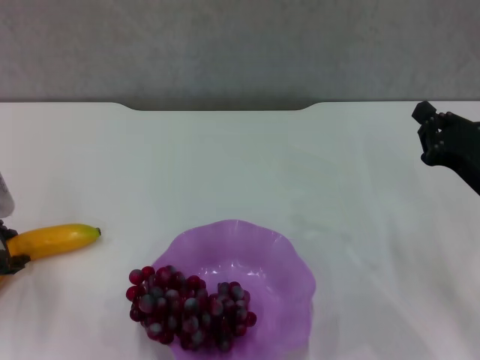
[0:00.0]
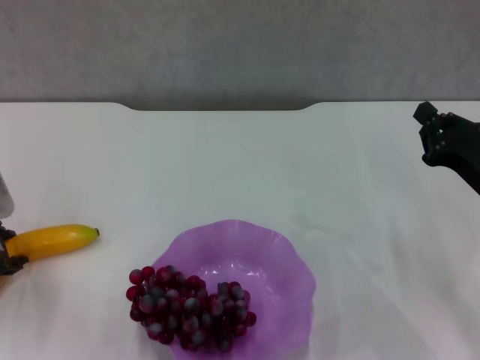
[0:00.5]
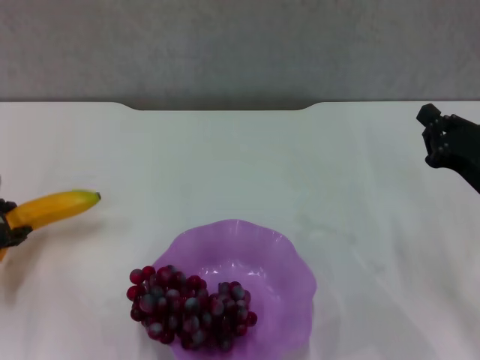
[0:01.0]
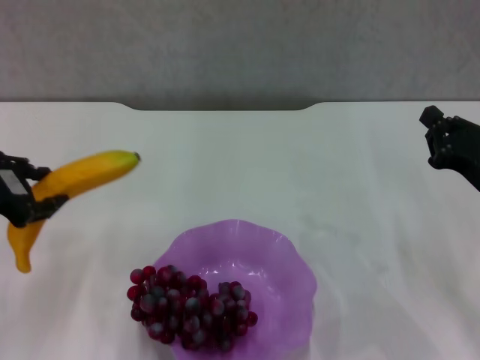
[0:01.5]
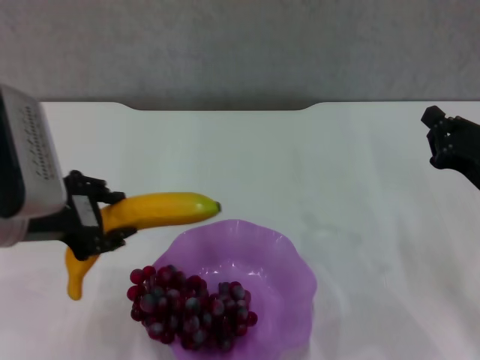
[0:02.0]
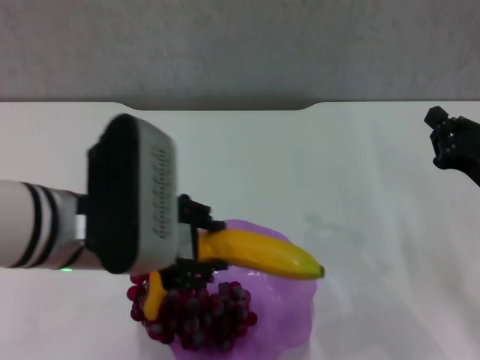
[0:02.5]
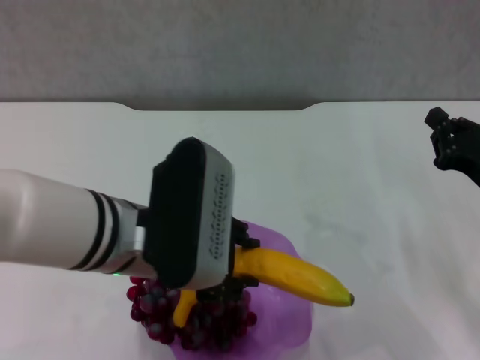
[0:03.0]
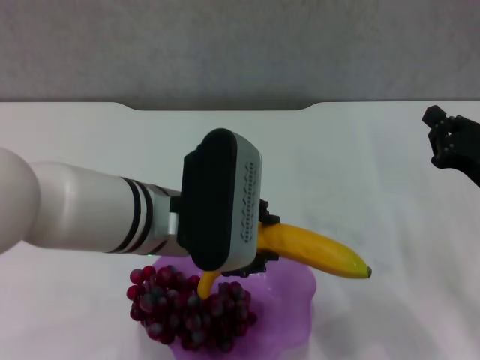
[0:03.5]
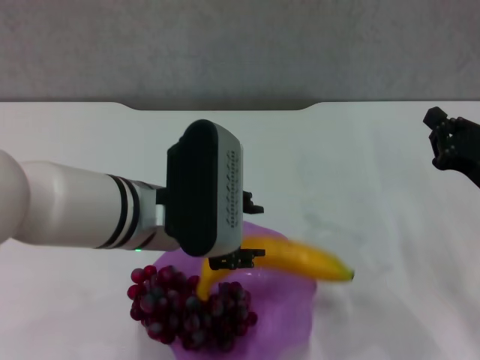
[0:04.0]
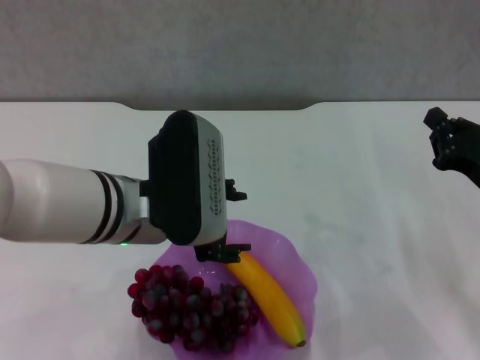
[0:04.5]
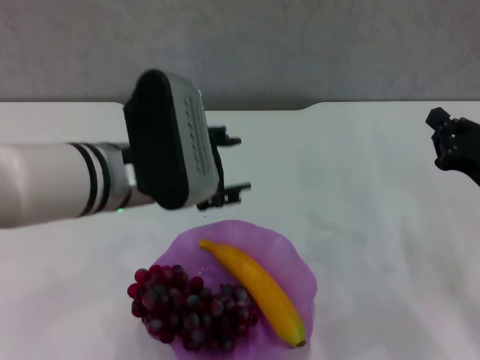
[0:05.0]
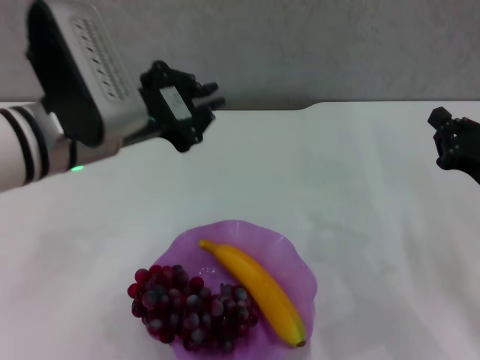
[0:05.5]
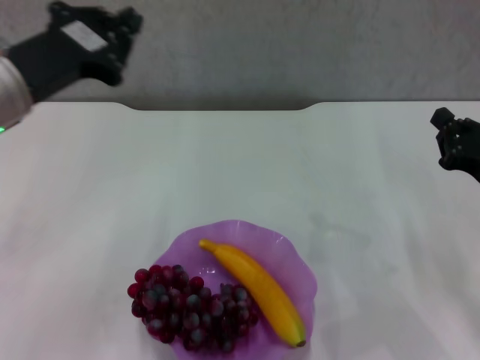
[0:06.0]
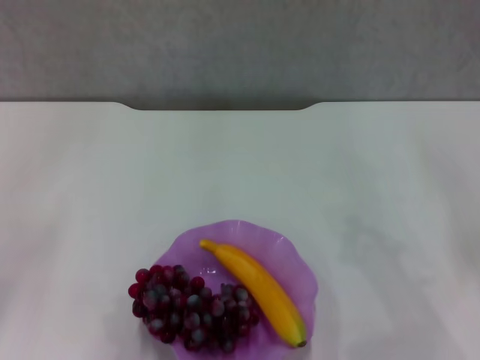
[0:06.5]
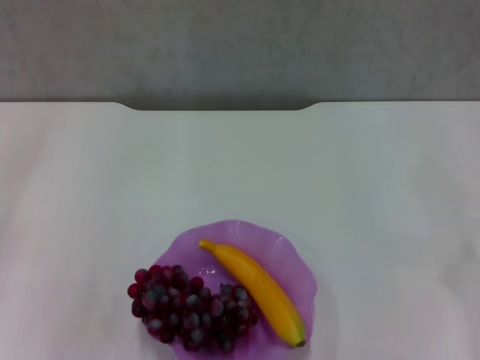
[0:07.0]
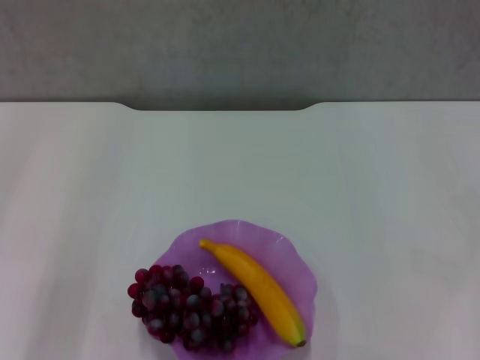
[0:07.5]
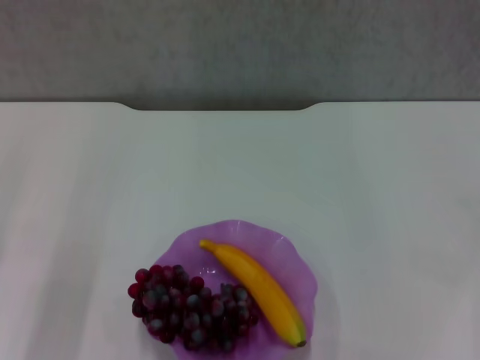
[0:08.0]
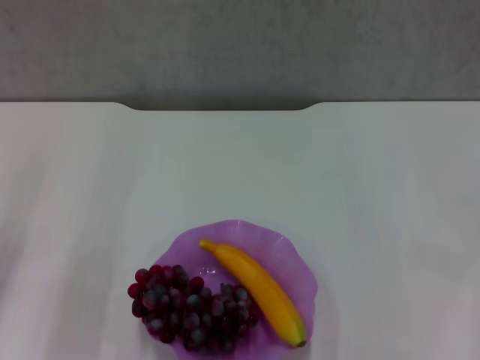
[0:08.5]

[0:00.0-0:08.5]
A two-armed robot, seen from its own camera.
Step, 0:00.5 to 0:04.5: Place the grape in the purple plate with left gripper.
0:00.0 to 0:02.0: The left gripper shifts about 15 cm to the right, upward and backward.
0:02.0 to 0:04.0: The left gripper shifts some 15 cm to the right.
0:04.0 to 0:06.5: The left gripper heads to the left, covering approximately 25 cm, and closes its fingers.
0:06.5 to 0:08.5: The left gripper moves downward, some 10 cm.
